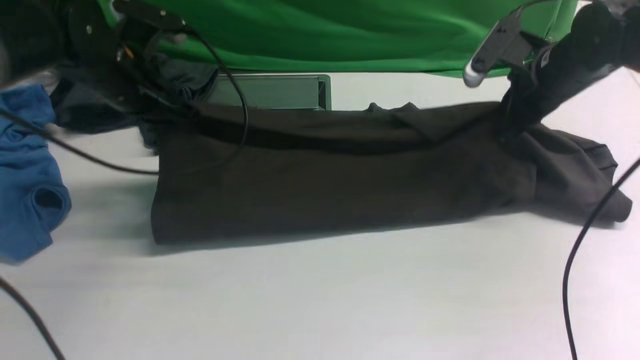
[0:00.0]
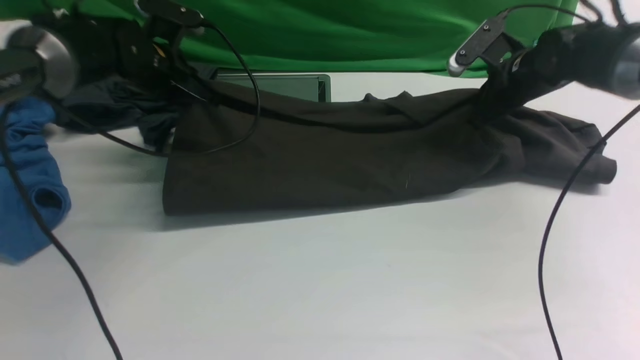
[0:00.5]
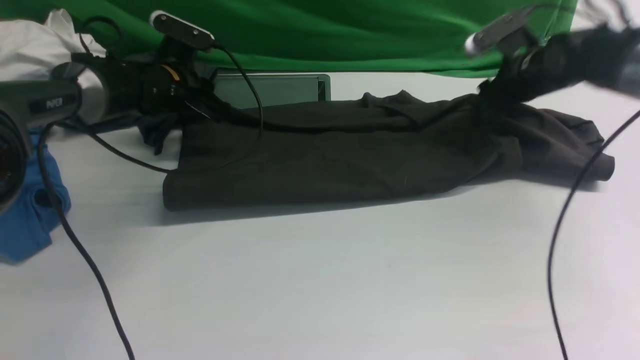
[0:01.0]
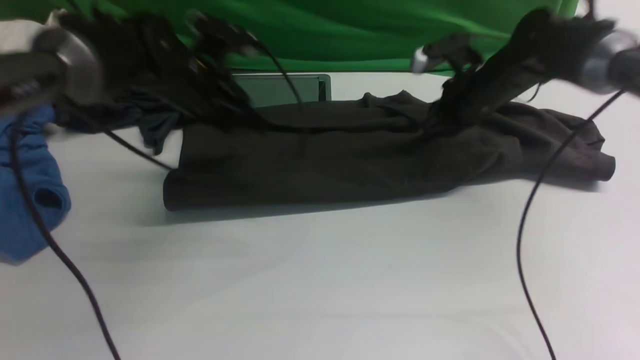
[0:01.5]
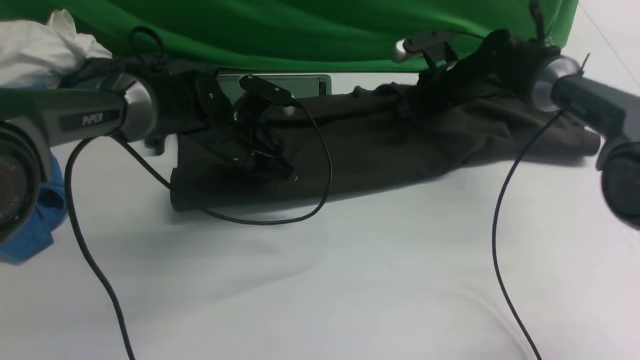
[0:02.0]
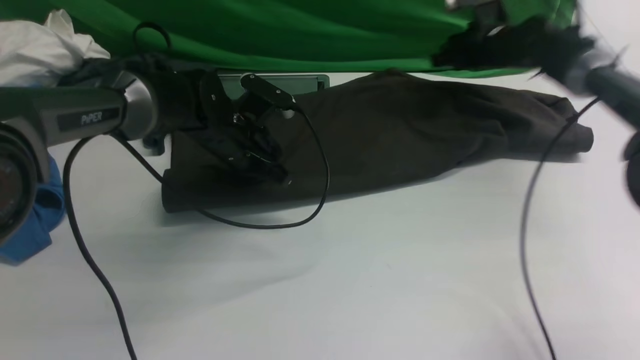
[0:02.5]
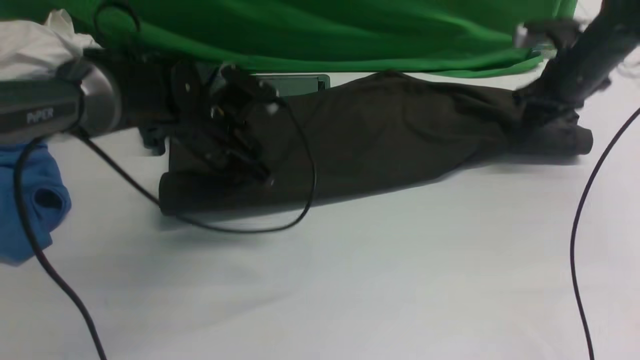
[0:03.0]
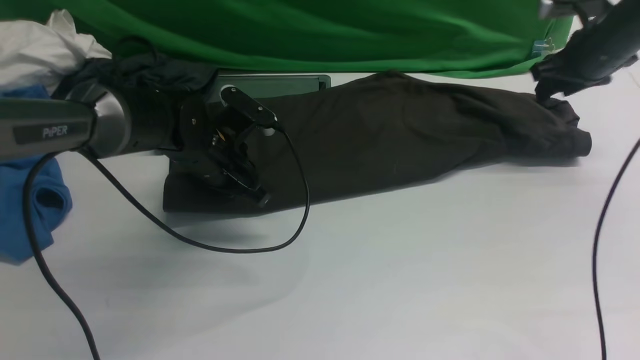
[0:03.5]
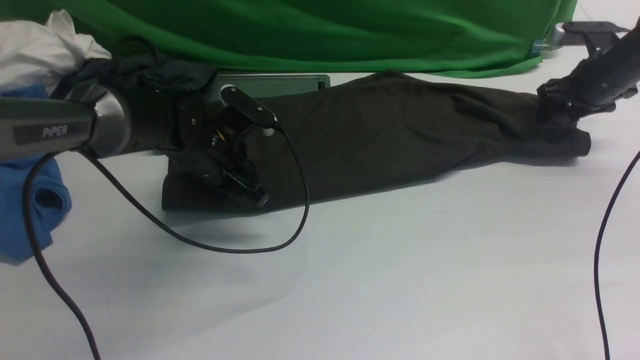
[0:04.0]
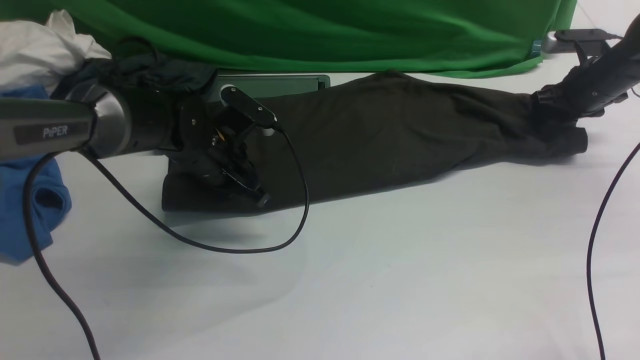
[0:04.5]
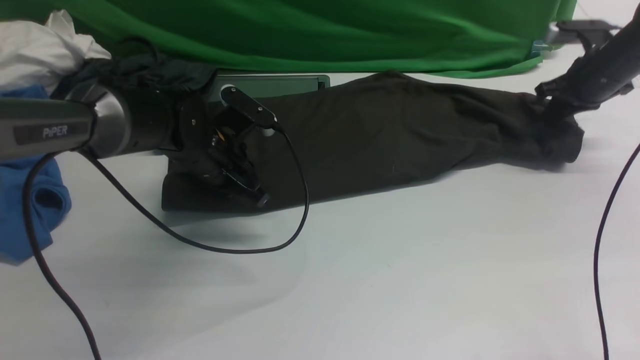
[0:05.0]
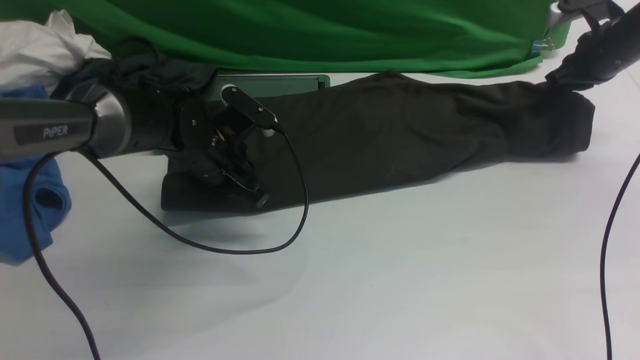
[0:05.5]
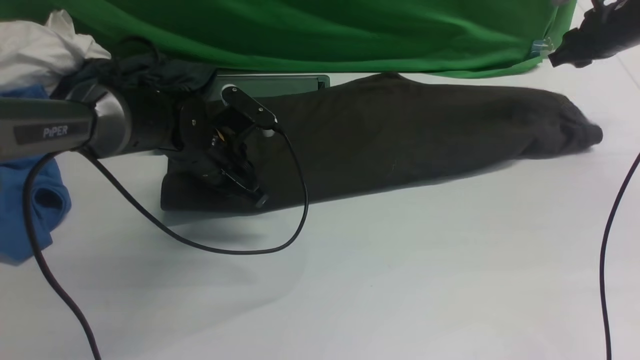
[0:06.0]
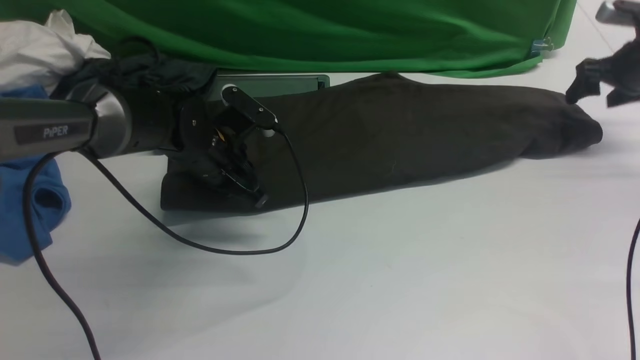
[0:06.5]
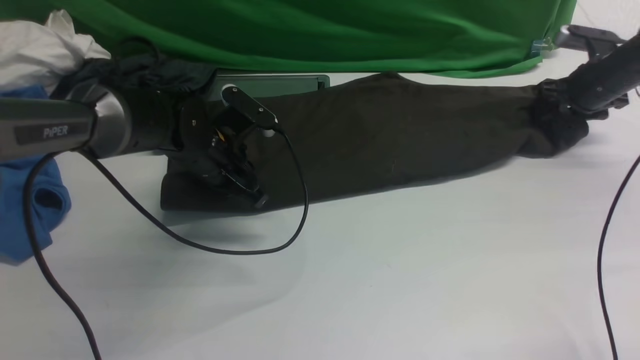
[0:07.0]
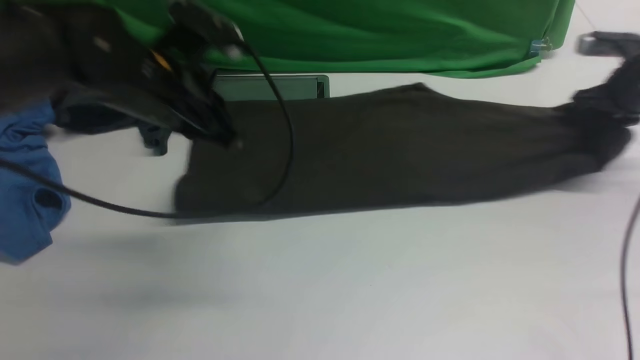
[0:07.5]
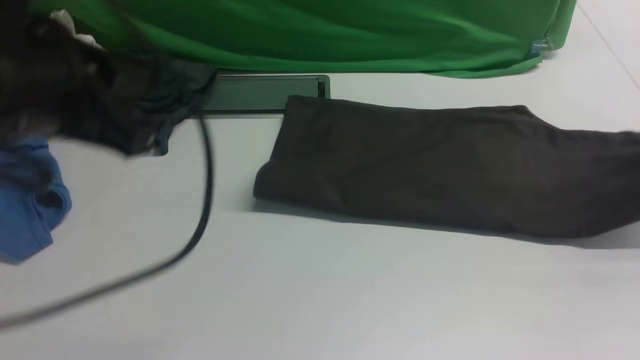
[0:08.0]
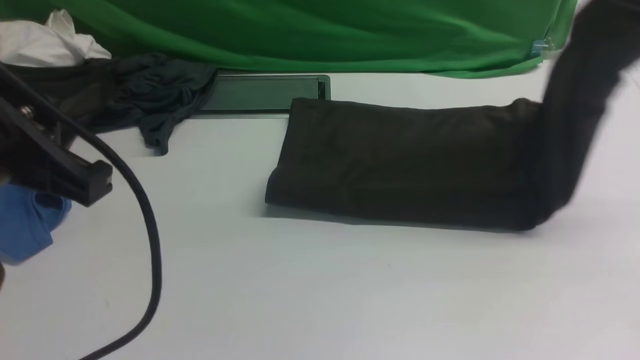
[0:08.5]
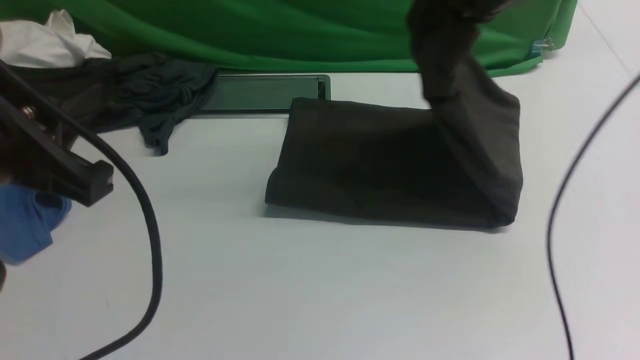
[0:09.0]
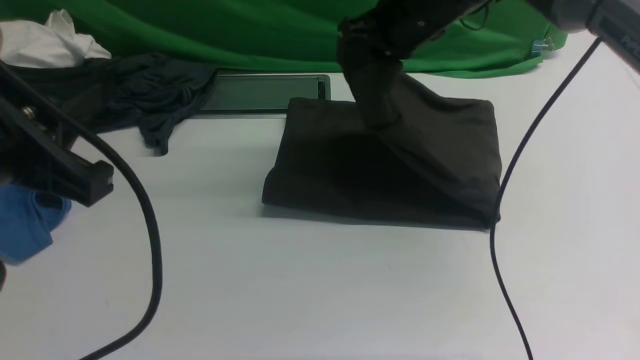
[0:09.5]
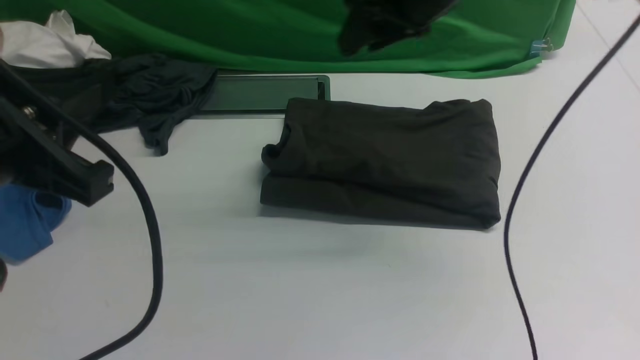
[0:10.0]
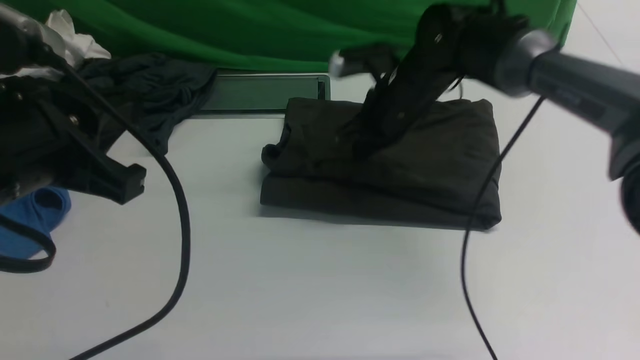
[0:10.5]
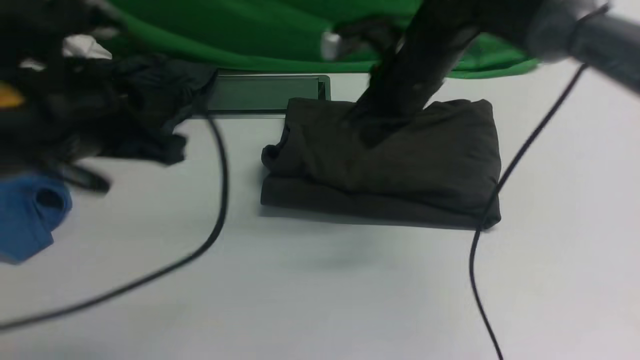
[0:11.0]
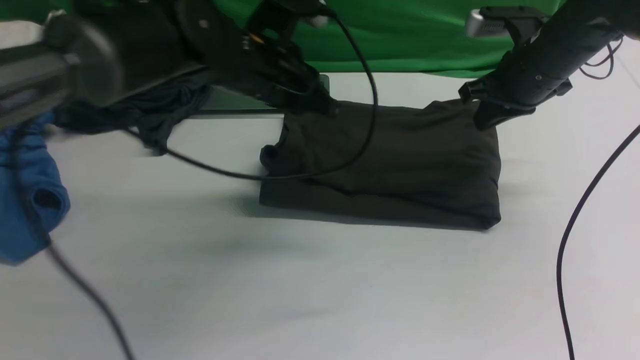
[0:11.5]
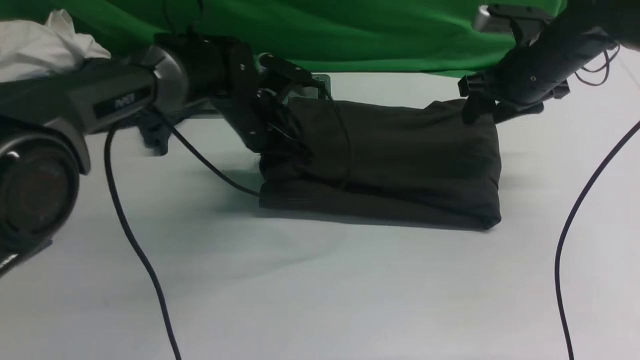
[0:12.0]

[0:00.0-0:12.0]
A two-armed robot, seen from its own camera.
Step, 0:00.0 to 0:06.0: use both arms to drag the lower edge of the fabric forward and fold it over the upper edge.
Step, 0:06.5 to 0:07.5: use the right arm to clamp the right edge of the fabric.
Step, 0:08.0 to 0:10.0: use the right arm to drag the right edge of the fabric to the left and folds it over the left edge.
0:00.0 to 0:02.0: The right gripper travels forward, downward and to the left by approximately 15 cm, and opens and closes again. The left gripper travels downward and to the right by approximately 15 cm, and opens and closes again.
0:02.0 to 0:04.0: The right gripper shifts approximately 20 cm to the right, and opens up.
0:04.0 to 0:06.0: The right gripper moves some 5 cm, and closes and opens again.
0:06.0 to 0:08.0: The right gripper is displaced backward and to the right by approximately 15 cm, and closes its fingers. The left gripper goes some 30 cm upward and backward.
0:08.0 to 0:10.0: The right gripper travels to the left by about 35 cm, and opens up.
0:10.0 to 0:12.0: The left gripper shifts roughly 35 cm forward and downward. Meanwhile the right gripper is displaced to the right and downward by about 15 cm, and closes and opens again.

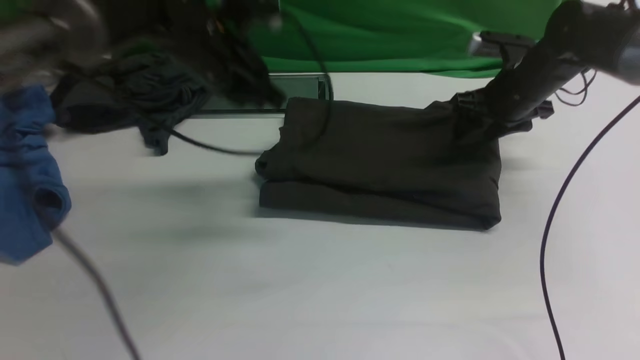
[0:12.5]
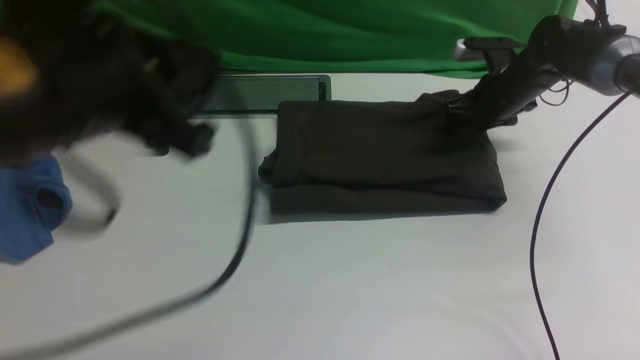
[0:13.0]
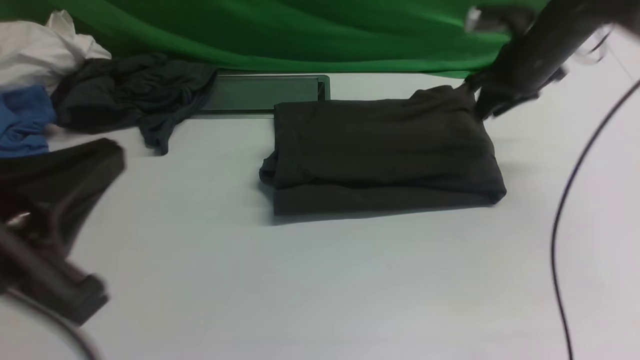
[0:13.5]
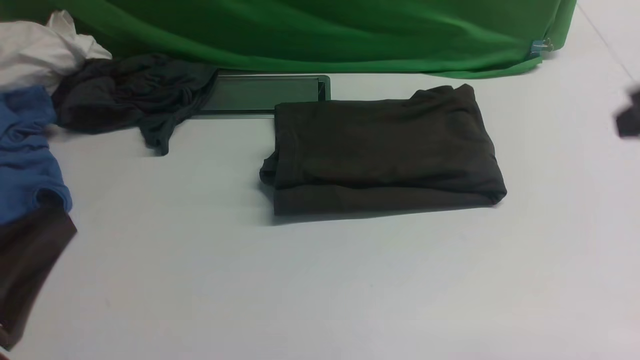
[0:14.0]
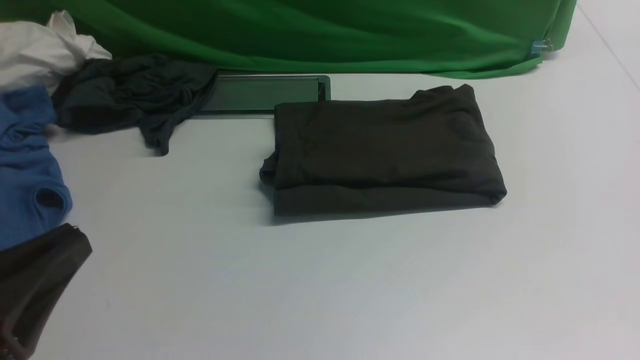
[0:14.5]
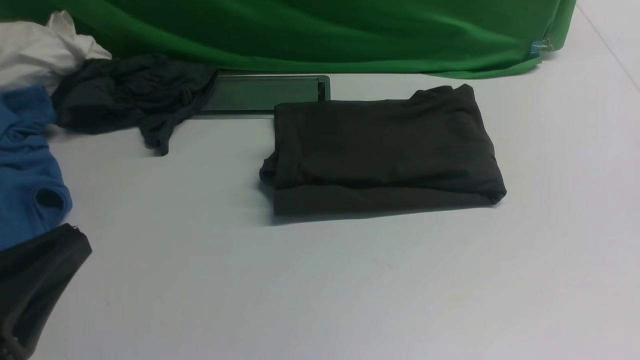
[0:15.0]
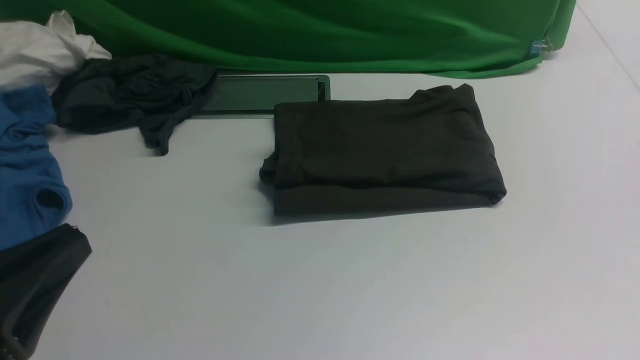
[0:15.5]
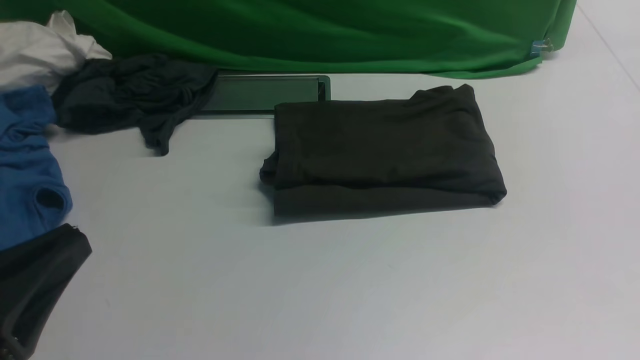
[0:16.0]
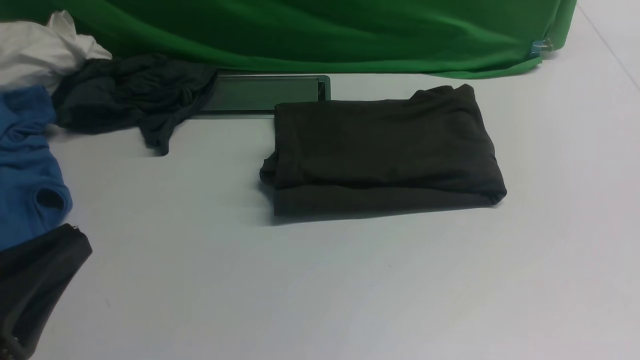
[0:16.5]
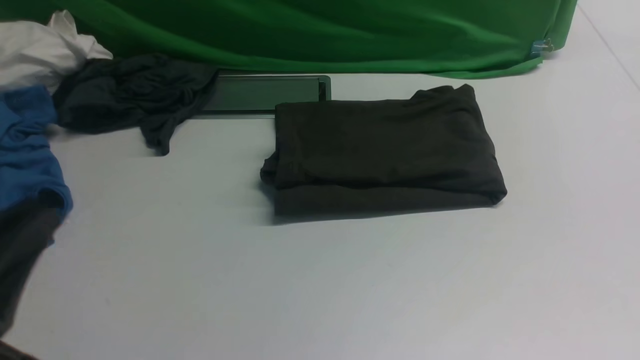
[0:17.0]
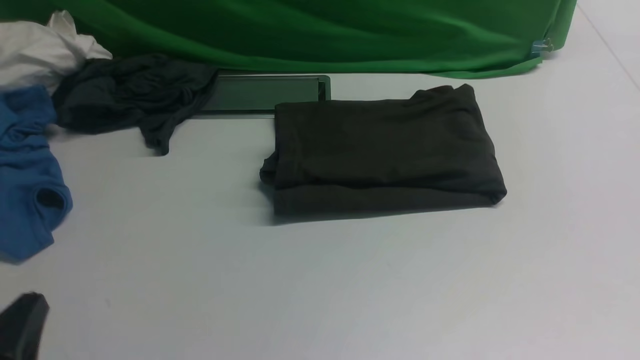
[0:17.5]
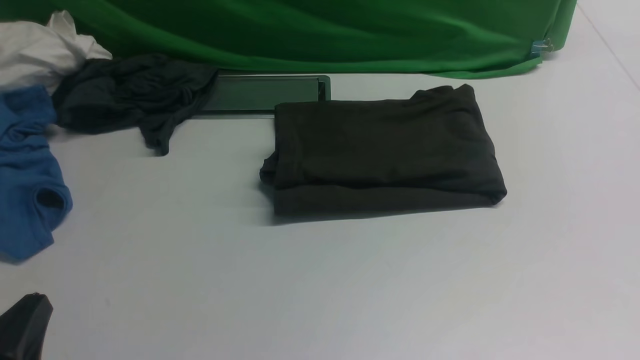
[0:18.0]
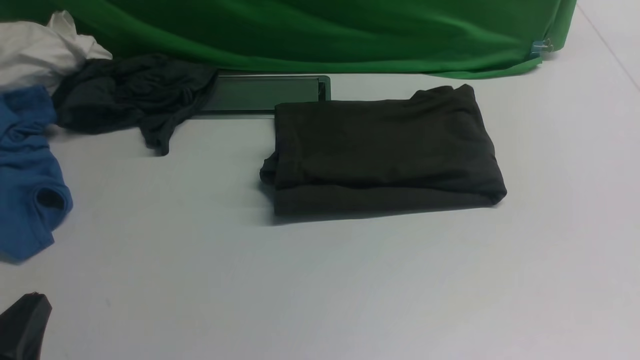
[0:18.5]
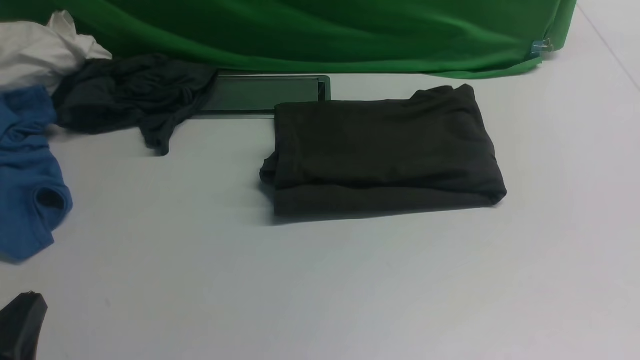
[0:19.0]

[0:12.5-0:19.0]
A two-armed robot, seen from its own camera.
0:12.5 to 0:14.5: Both grippers travel together backward, approximately 35 cm. The right gripper closes up.
0:17.0 to 0:19.0: The left gripper moves downward, some 10 cm.
